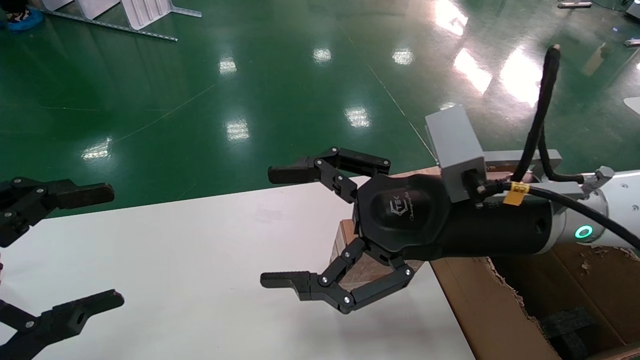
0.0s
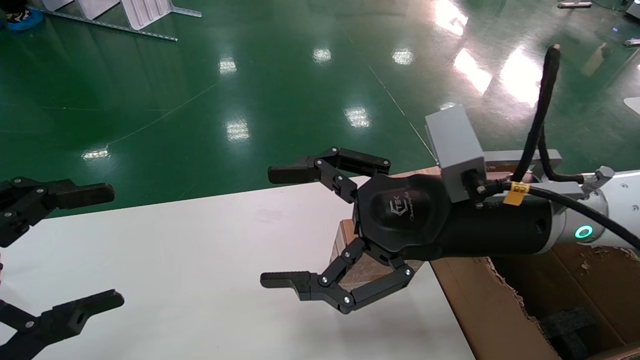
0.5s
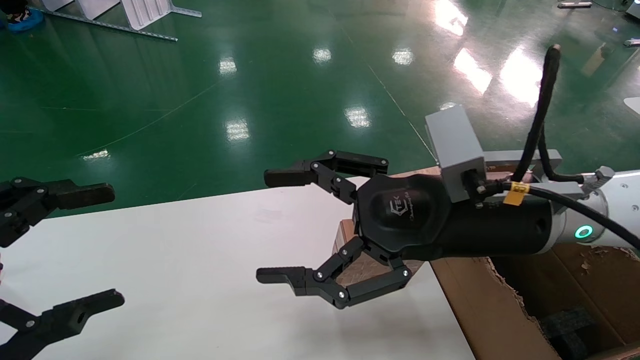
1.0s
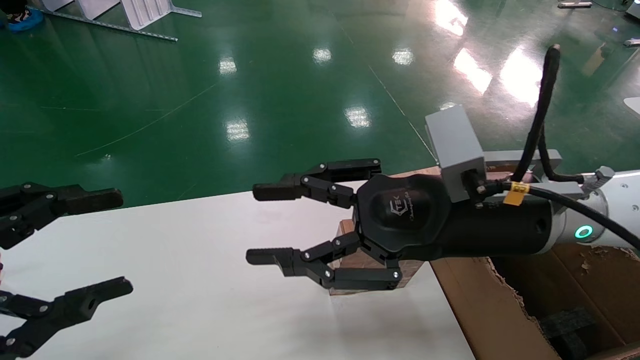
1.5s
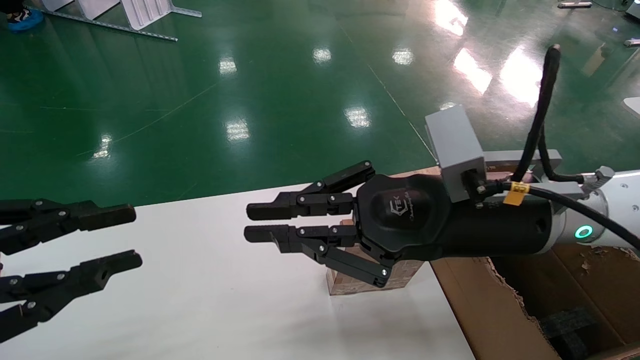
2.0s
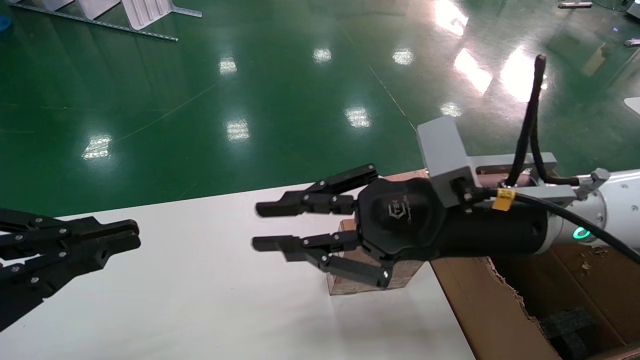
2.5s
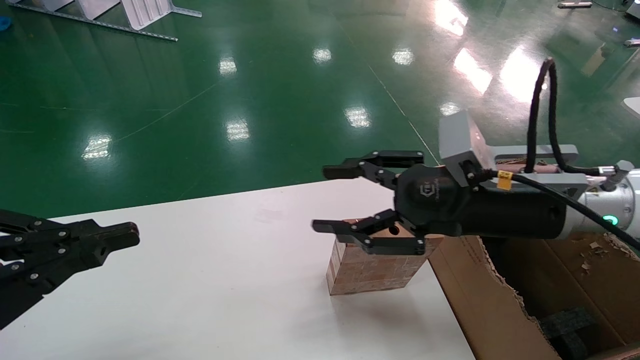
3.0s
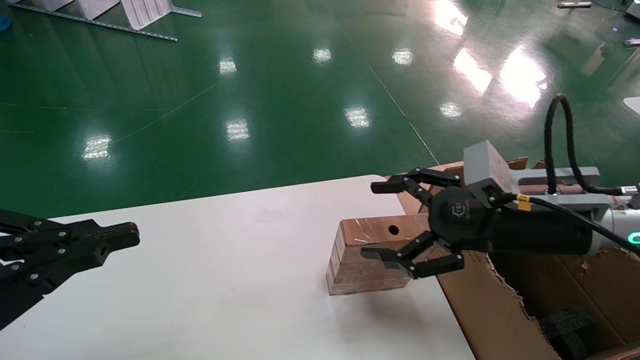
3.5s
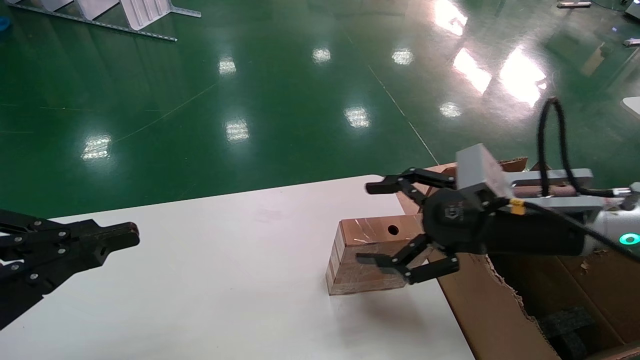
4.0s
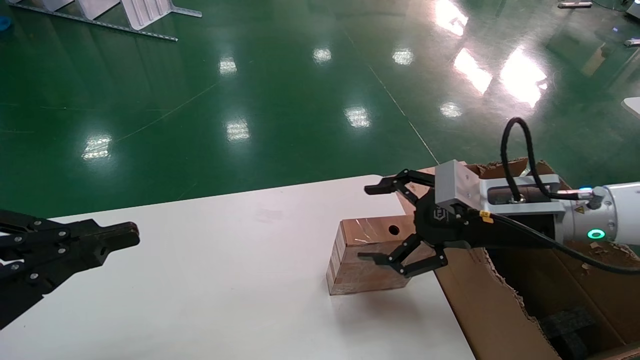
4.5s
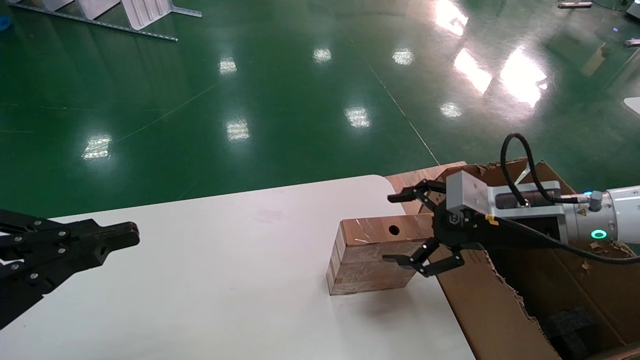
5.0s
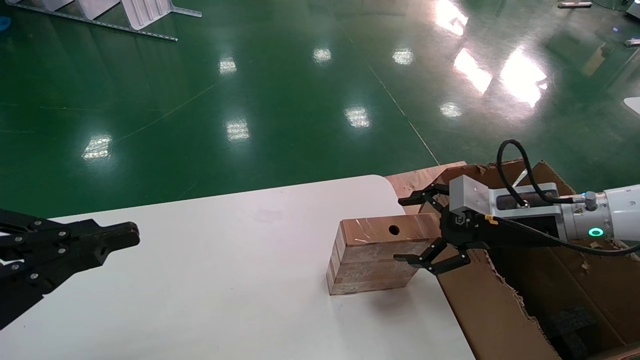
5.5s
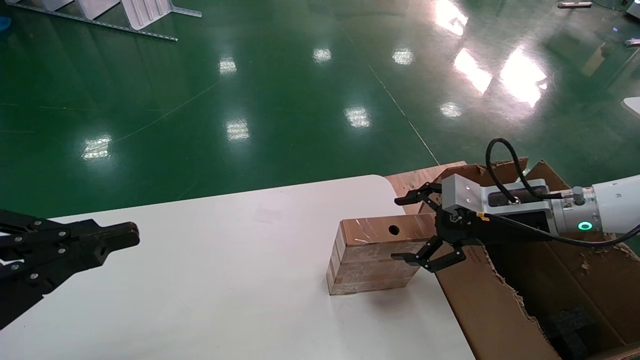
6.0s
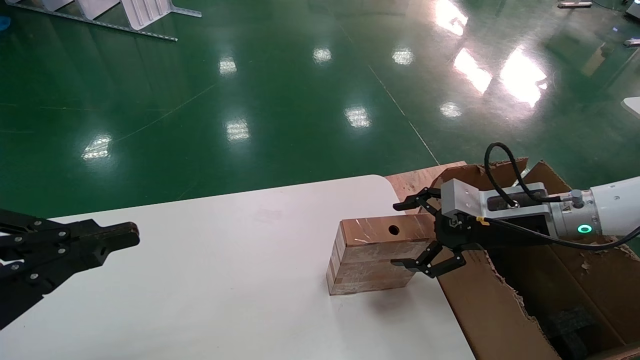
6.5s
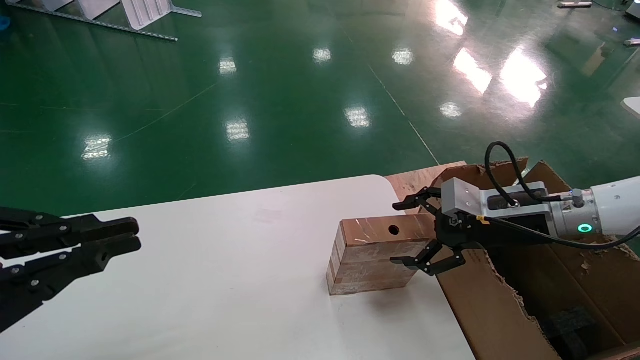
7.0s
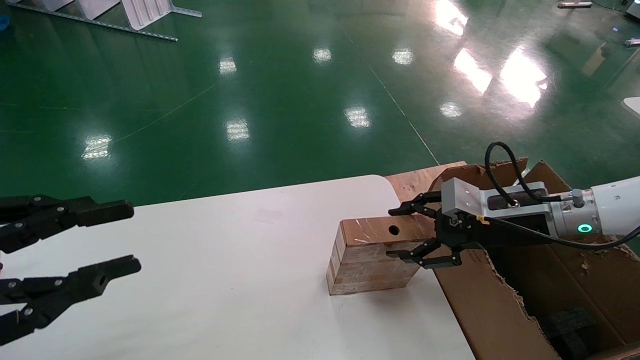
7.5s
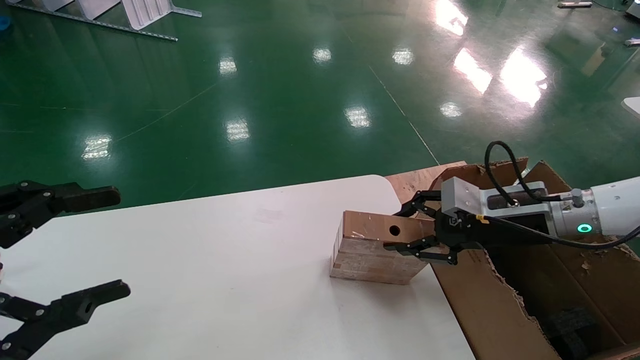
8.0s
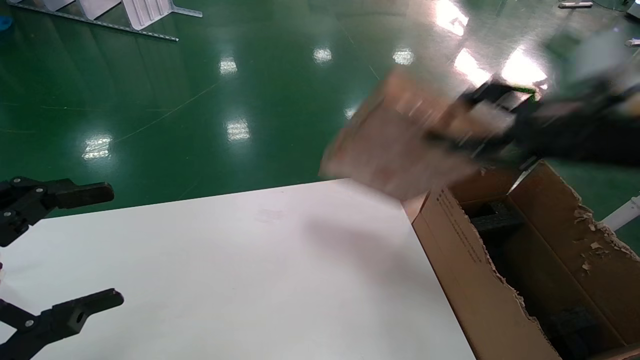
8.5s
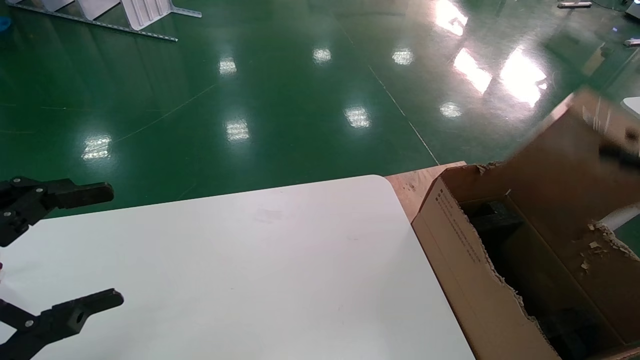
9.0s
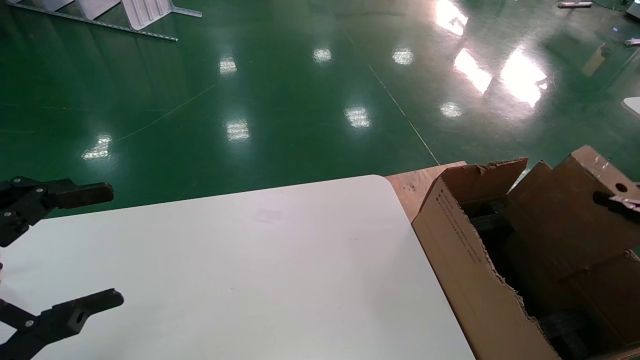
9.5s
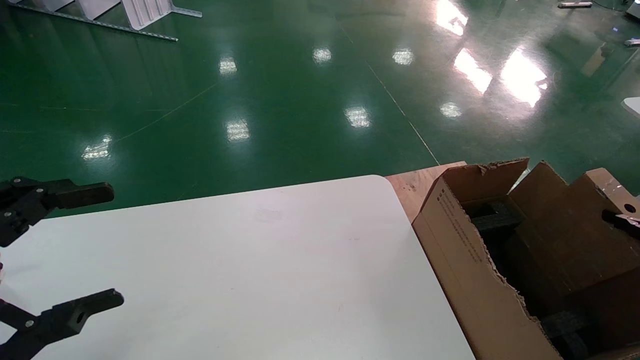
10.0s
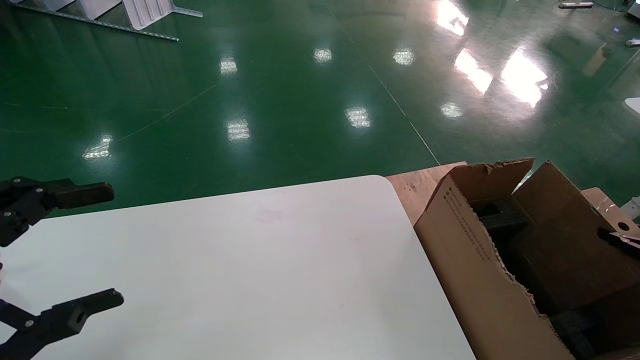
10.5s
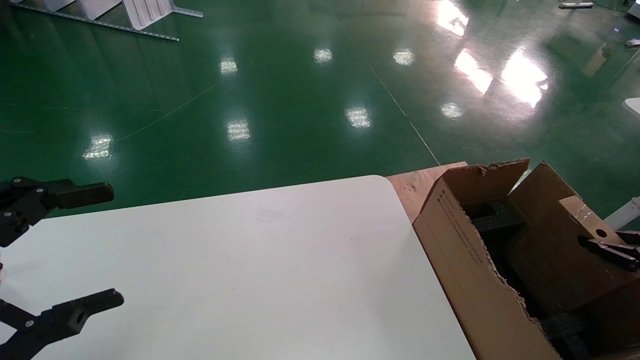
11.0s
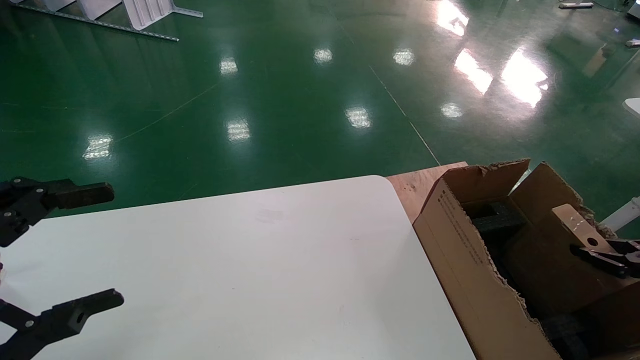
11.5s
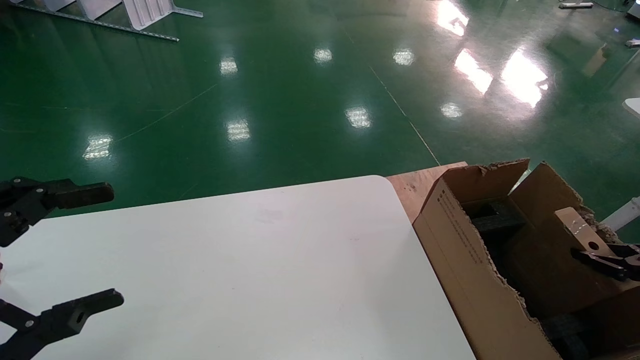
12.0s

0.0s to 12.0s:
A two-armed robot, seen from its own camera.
Task of the whole recording: put the box on the table into the big box.
Step, 3.0s to 7.5s: Pick up the mouse and the power cord paper box.
0.0s to 2.0s: The left gripper closes its fingers. The right gripper closes up.
2.0s to 4.0s: The right gripper heads to the right, covering about 10 cm, and opens. Meanwhile the left gripper closes.
4.0s to 6.0s: The right gripper is displaced forward and to the right by some 10 cm.
6.0s to 8.0s: The right gripper closes. Meanwhile the left gripper opens its fingers.
8.0s to 10.0s: The right gripper is displaced to the right and backward by about 30 cm.
10.0s to 12.0s: The right gripper moves downward, about 5 cm.

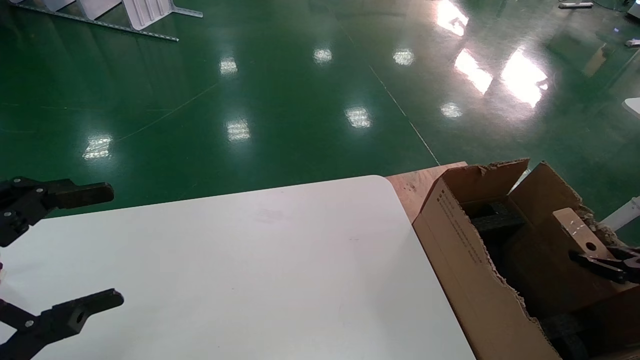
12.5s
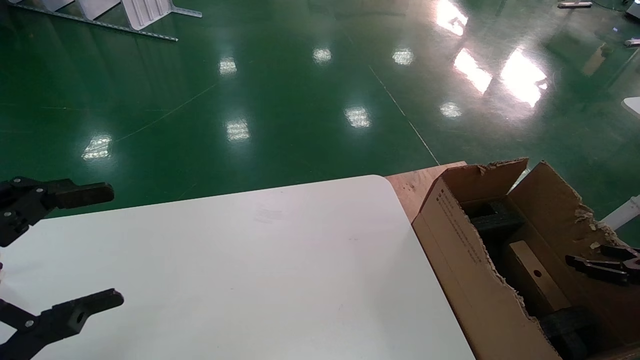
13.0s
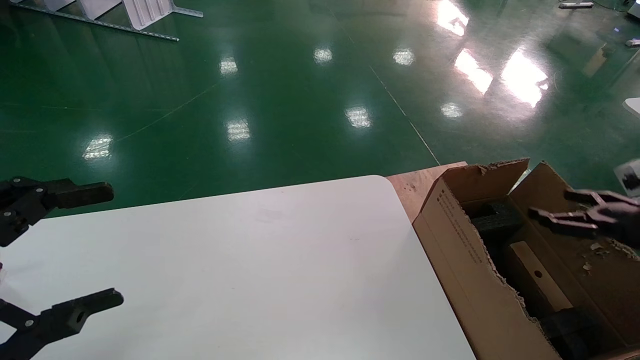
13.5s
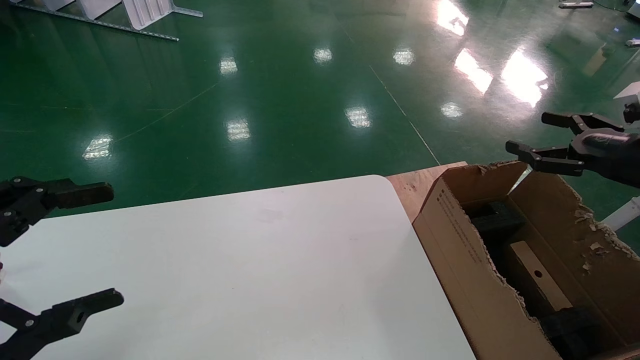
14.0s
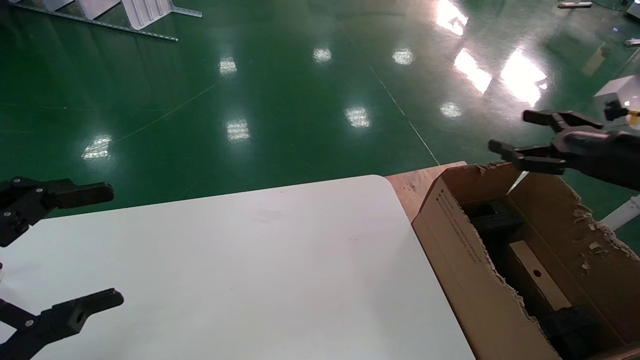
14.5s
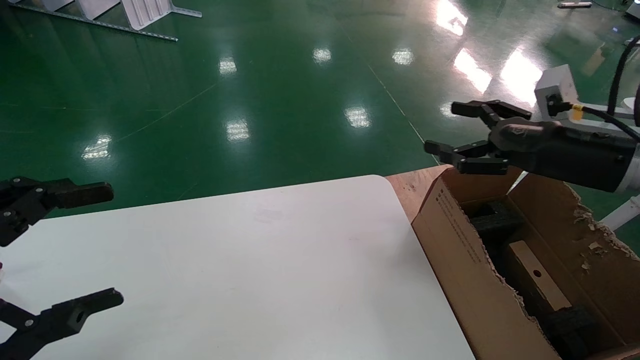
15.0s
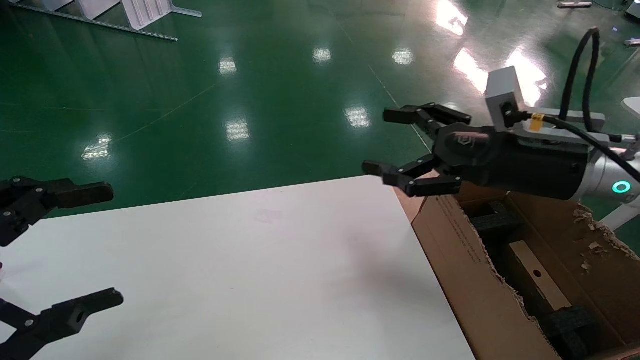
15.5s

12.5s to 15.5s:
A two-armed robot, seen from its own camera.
Task of the whole recording: put the box on the table into the big box.
12.5s to 14.0s: The right gripper goes some 20 cm upward, to the left and forward, and opens its fingers.
14.0s to 15.5s: The right gripper shifts about 20 cm to the left.
